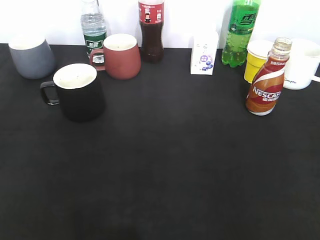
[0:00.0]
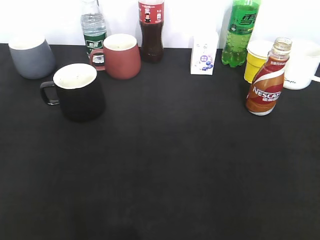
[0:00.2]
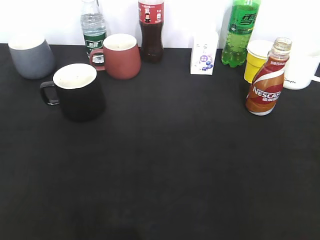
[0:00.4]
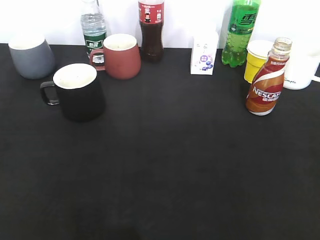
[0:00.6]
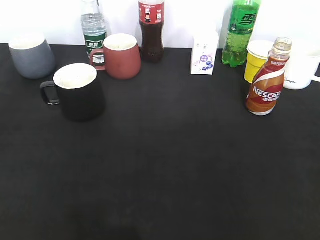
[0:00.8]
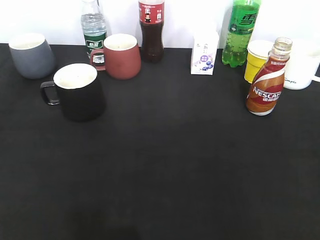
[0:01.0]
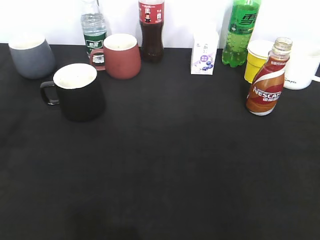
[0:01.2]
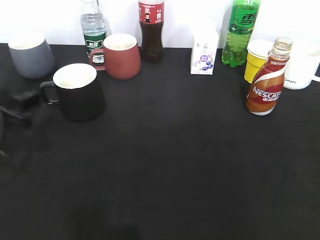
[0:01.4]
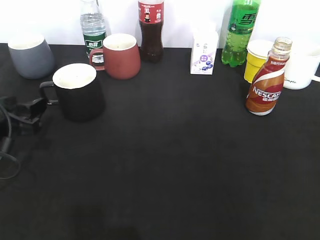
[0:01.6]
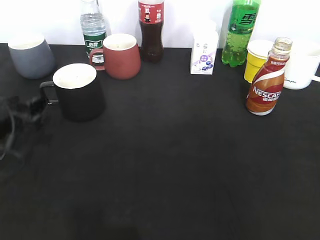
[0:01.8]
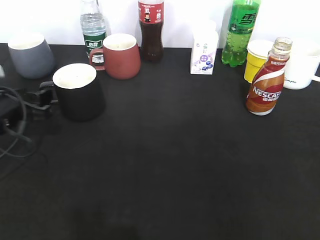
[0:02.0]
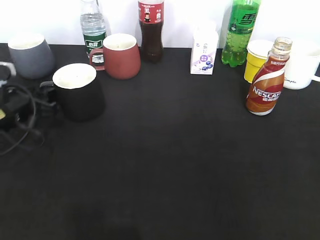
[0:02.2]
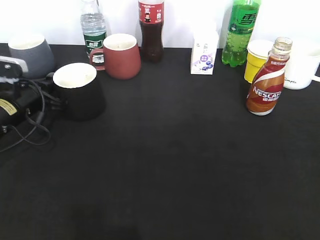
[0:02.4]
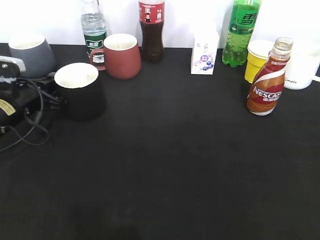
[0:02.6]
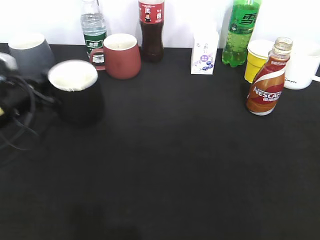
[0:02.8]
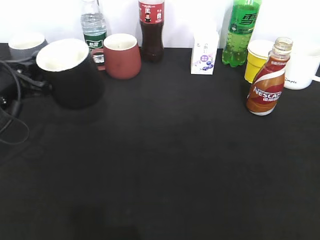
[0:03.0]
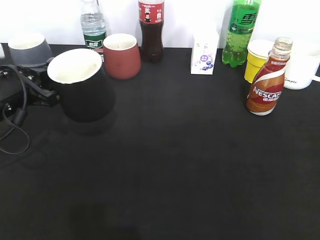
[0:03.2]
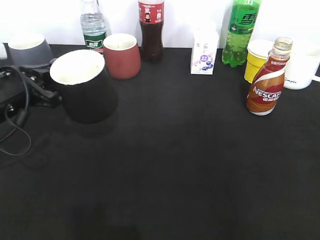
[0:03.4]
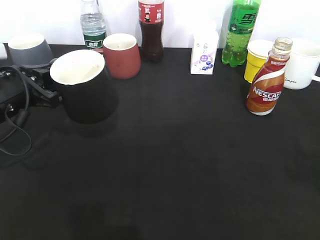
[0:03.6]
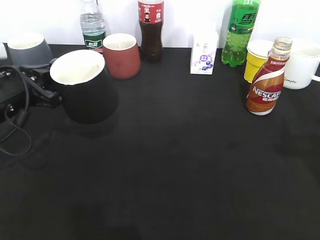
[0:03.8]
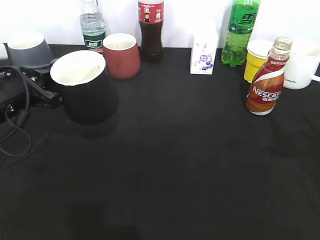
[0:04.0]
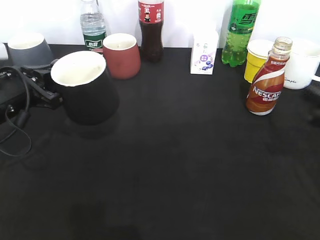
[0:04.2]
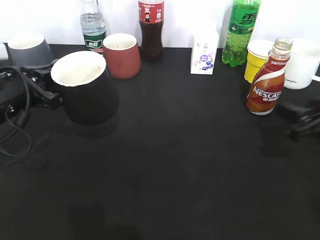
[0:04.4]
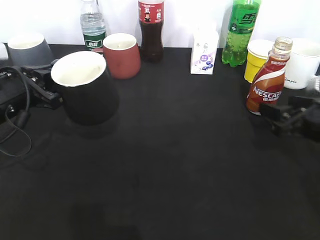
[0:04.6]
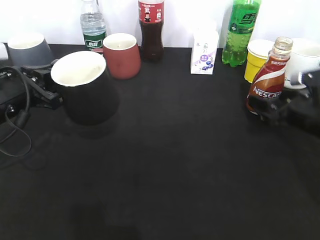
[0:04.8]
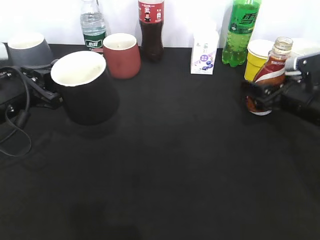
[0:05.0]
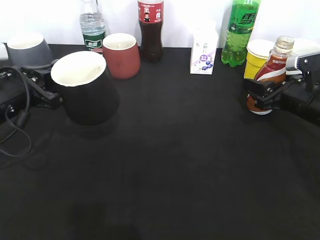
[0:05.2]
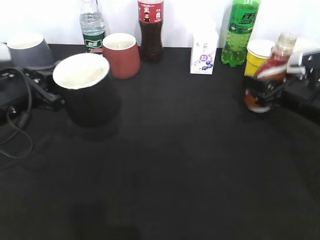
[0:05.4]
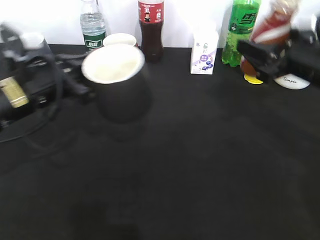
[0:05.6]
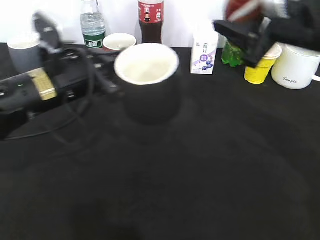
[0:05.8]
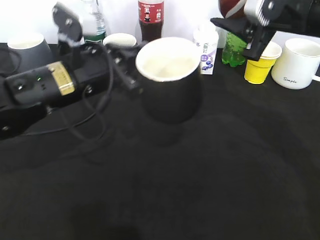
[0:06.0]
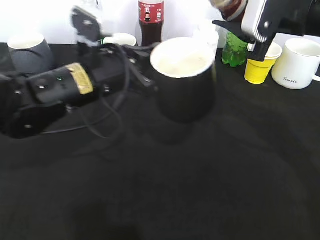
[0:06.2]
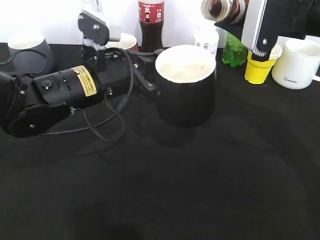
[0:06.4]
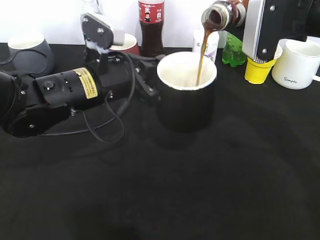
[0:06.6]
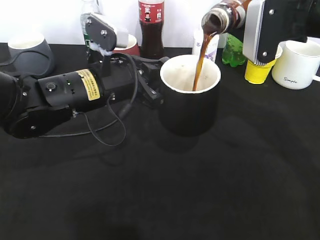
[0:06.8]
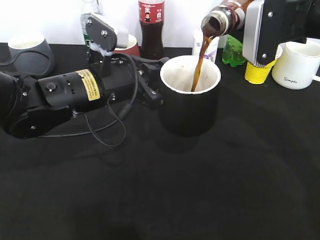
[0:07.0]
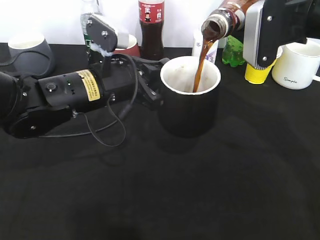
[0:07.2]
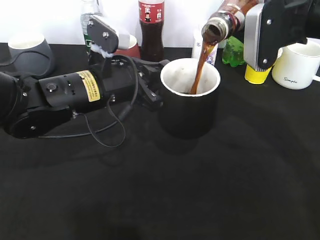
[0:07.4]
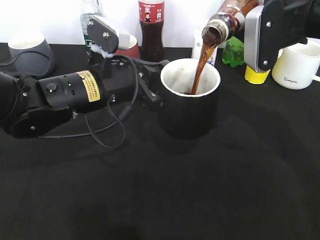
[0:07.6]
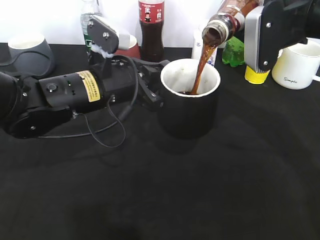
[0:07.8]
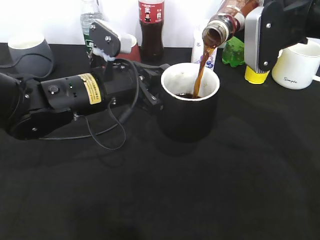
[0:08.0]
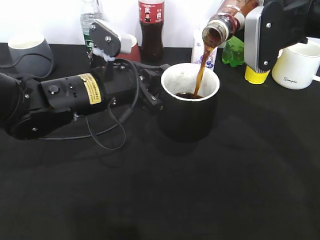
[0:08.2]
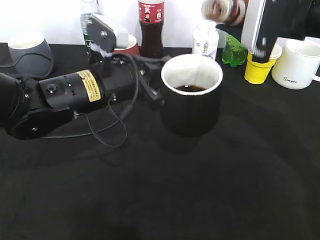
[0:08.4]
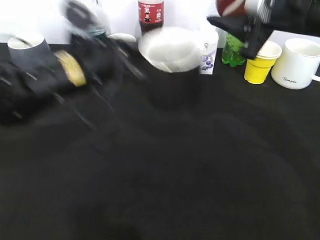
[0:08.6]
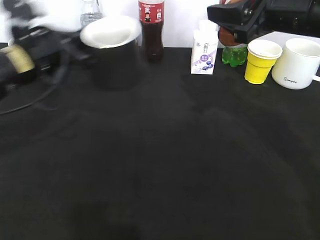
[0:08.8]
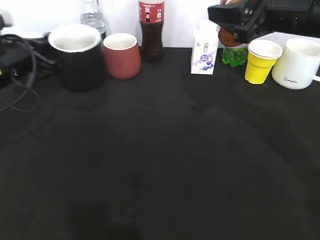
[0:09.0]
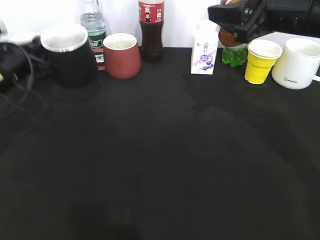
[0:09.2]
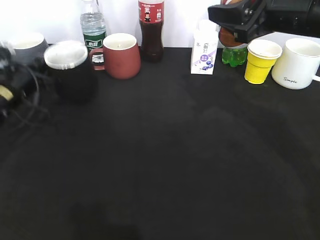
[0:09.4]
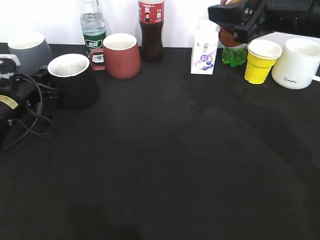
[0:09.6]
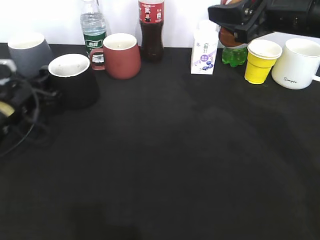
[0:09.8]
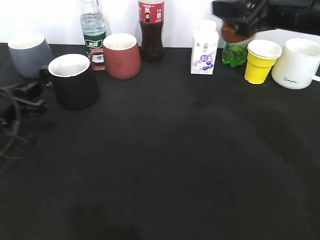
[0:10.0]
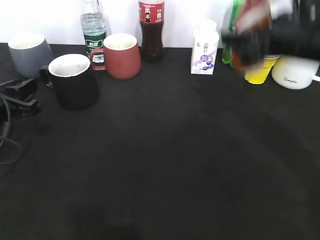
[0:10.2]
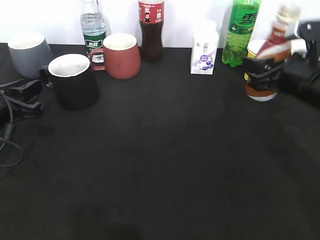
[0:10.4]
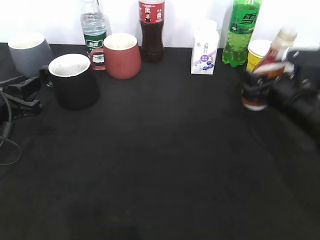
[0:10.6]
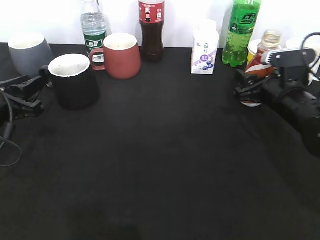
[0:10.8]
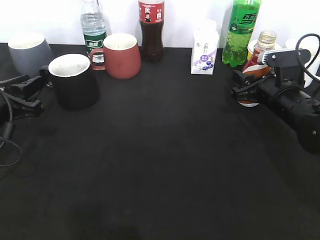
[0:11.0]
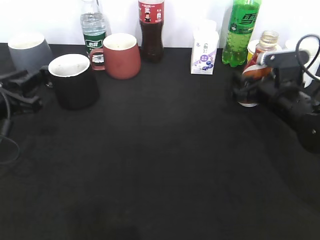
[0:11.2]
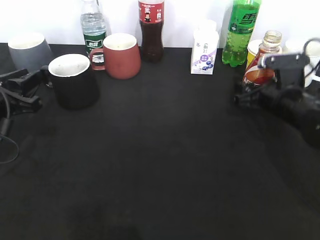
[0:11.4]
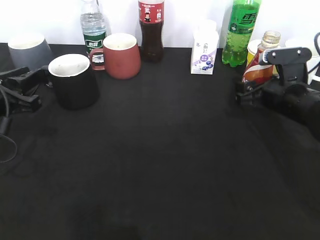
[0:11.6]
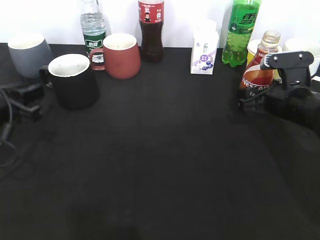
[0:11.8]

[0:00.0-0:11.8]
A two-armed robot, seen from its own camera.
Step, 0:00.0 to 0:02.4: Grasp the black cup with left gripper.
Step, 0:02.8 to 0:03.2: Lift the black cup with left gripper.
Step, 0:03.4 to 0:05.0: Grasp the bottle with coffee with right gripper.
Step, 0:05.2 to 0:08.6: Pour the coffee from bottle to cup with right gripper.
Step, 0:08.8 to 0:09.8: Place the black cup on the table with left gripper.
Step, 0:10.0 to 0:11.6: Place the coffee bottle on the table with right gripper.
0:00.0 to 0:01.4: The left gripper goes approximately 25 cm forward and downward, and opens up.
0:01.4 to 0:03.0: The left gripper moves forward, about 5 cm, and closes up.
0:03.0 to 0:04.4: The right gripper moves forward and downward, about 25 cm.
0:04.4 to 0:06.0: The right gripper is displaced upward, to the left and forward by approximately 20 cm, and closes. Meanwhile the left gripper is displaced to the right by approximately 15 cm.
0:07.4 to 0:08.8: The left gripper travels to the left by roughly 10 cm.
0:08.8 to 0:10.4: The right gripper goes some 10 cm downward, while the left gripper travels to the left, downward and backward by roughly 10 cm, and opens its fingers.
0:10.4 to 0:11.8: The right gripper shifts approximately 5 cm downward, and opens.

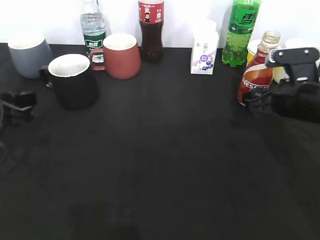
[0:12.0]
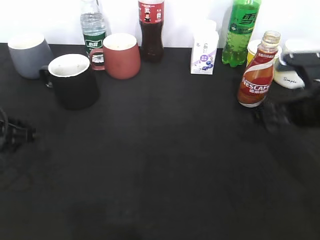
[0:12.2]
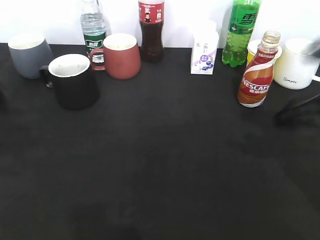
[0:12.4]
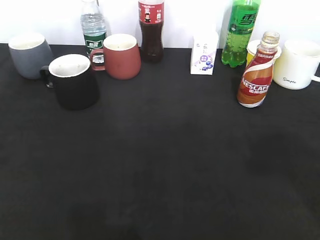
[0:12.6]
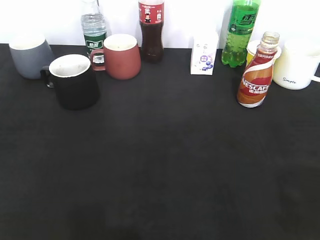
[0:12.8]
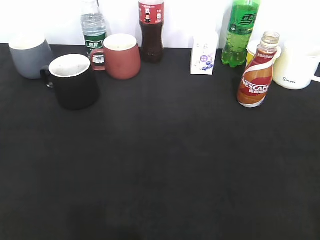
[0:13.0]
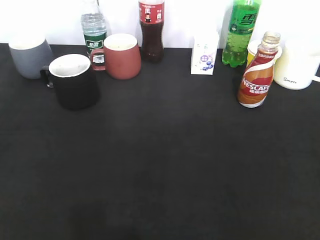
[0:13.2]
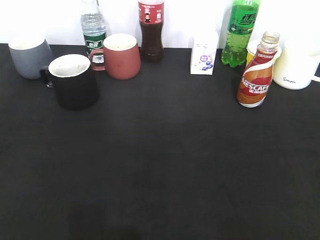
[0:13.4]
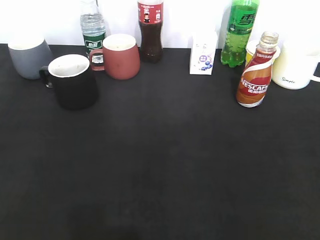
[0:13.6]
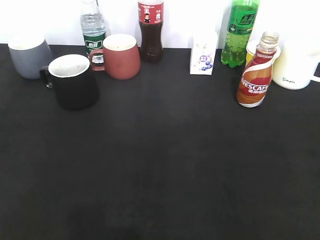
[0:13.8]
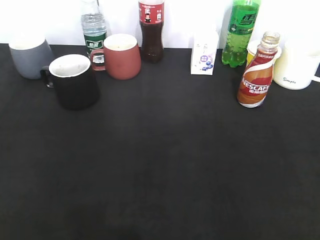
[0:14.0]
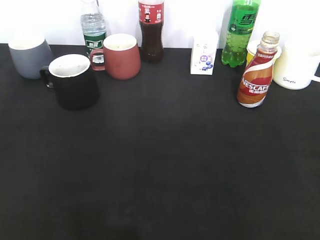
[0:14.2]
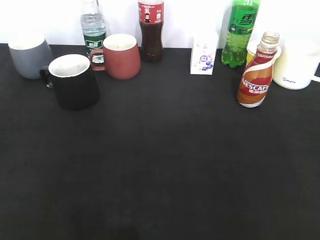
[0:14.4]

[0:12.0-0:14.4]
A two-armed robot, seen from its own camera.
0:12.0 to 0:13.2: The two grippers go roughly 30 cm backward and upward.
0:13.2 to 0:14.4: The grippers make only small movements.

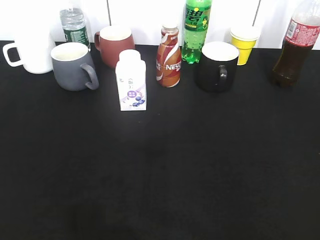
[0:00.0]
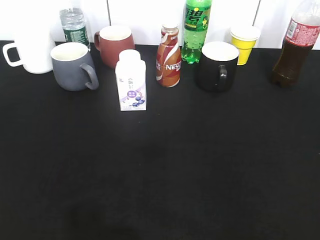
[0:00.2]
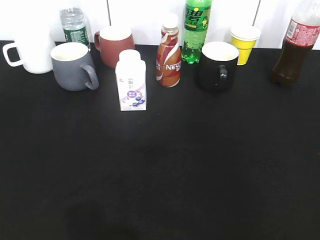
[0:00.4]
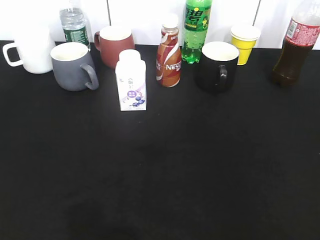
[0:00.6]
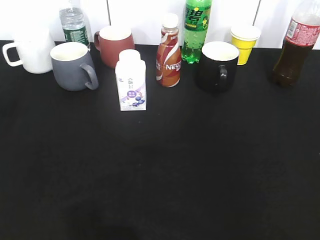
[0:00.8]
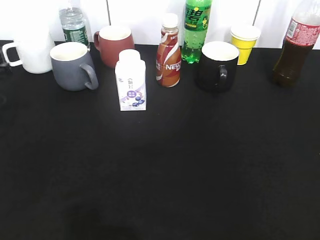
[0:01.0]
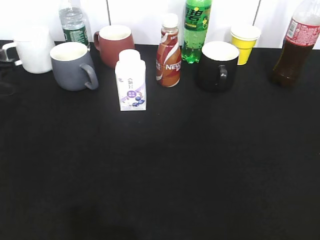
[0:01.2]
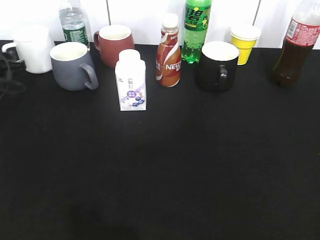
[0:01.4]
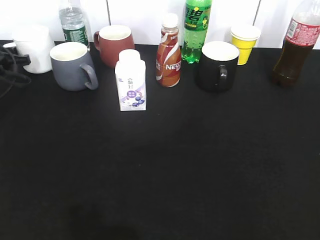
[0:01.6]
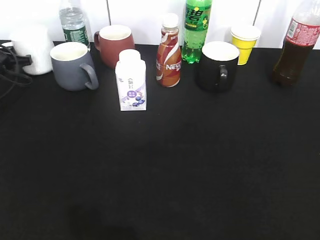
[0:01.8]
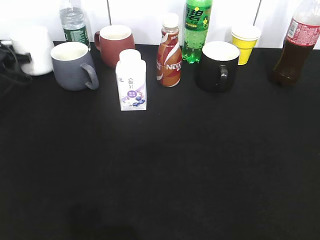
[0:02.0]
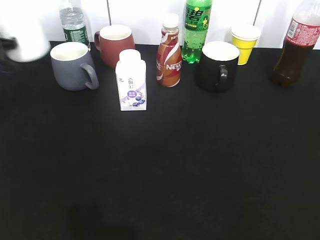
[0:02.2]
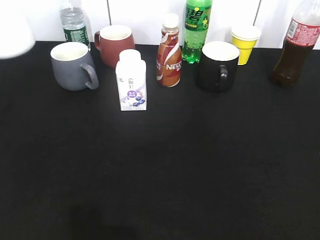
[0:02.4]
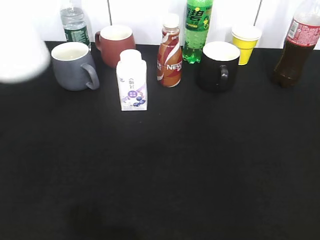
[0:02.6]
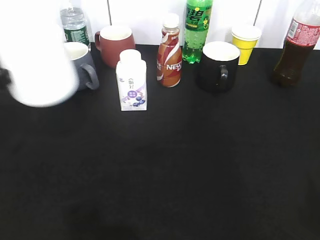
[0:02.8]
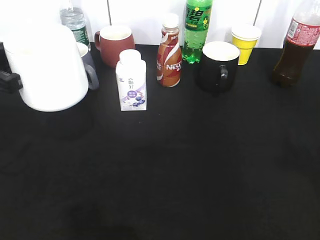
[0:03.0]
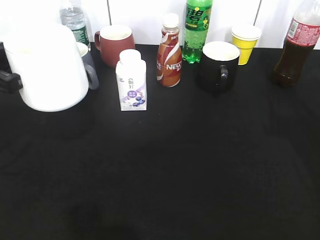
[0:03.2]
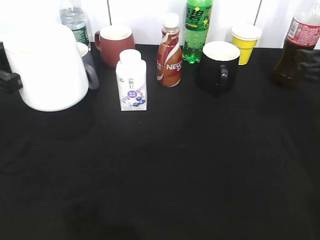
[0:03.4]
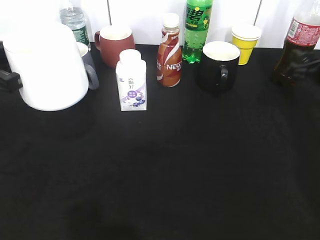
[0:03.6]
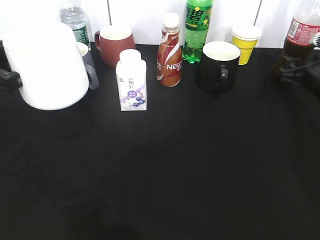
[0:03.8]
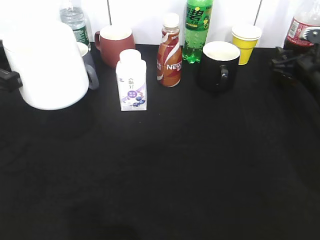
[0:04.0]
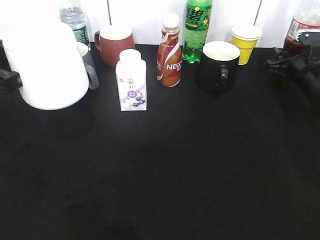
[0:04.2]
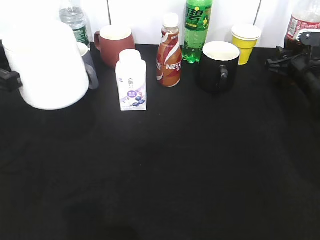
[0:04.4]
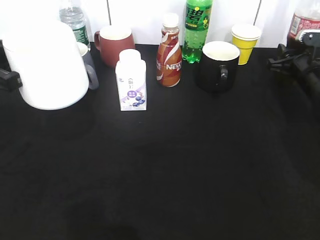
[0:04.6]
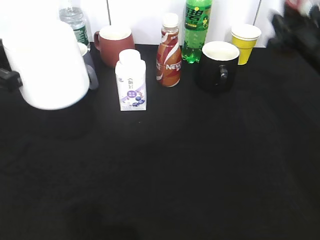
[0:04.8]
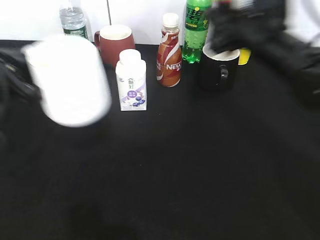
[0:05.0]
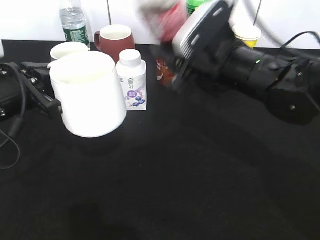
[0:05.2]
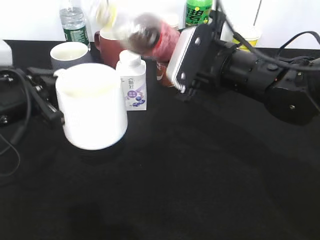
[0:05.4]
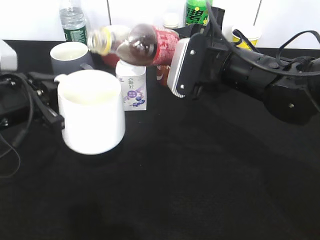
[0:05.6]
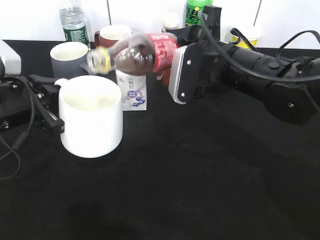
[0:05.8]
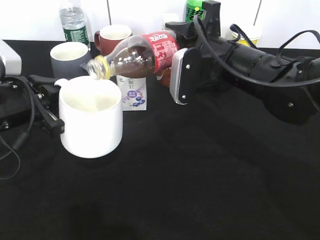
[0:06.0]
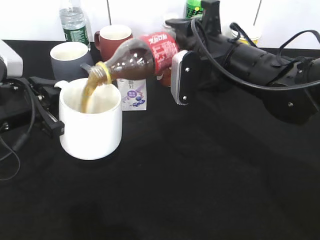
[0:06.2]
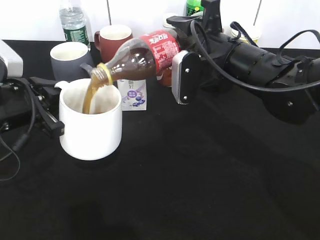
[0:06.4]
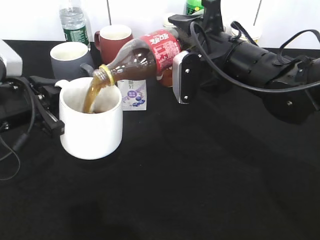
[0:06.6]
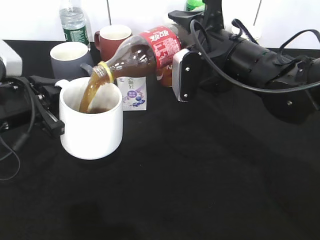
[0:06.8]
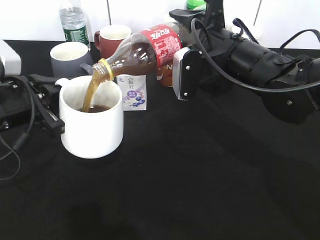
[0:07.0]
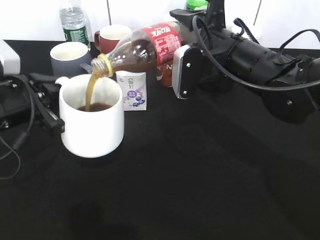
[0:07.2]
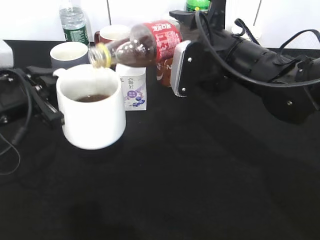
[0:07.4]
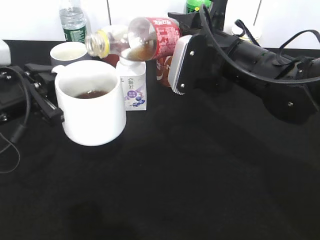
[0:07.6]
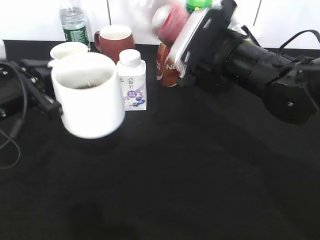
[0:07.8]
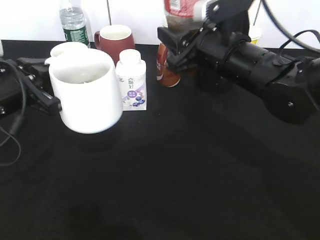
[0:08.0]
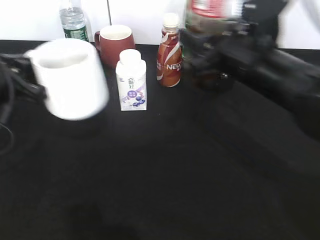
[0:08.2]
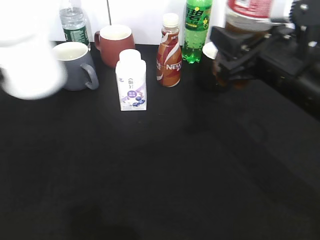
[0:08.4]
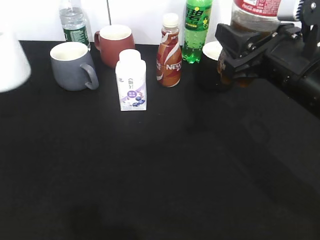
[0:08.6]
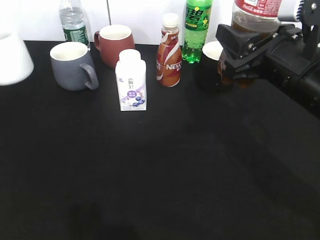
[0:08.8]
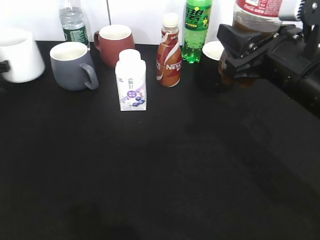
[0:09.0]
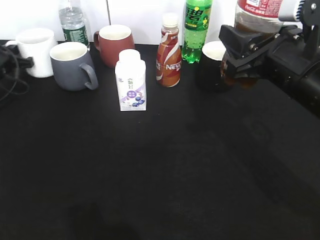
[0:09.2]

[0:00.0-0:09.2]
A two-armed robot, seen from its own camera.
Step, 0:01.8 to 0:03.6: Lift the white cup with left gripper.
Step, 0:04.4 to 0:07.6: Pour the cola from bottle to cup with right gripper.
0:00.0 to 0:01.6: The left gripper is displaced forward by some 40 cm, and closes up.
0:01.6 to 0:03.0: The right gripper is displaced forward by approximately 15 cm. Meanwhile the left gripper is displaced backward, upward and to the right by about 25 cm, and closes up.
0:03.0 to 0:04.6: The right gripper shifts some 30 cm forward and downward, and closes.
0:04.6 to 0:06.2: The right gripper is displaced to the left, backward and upward by roughly 25 cm; the left gripper goes roughly 5 cm downward.
0:06.2 to 0:07.6: The grippers make only small movements.
0:07.6 to 0:09.2: The left gripper shifts some 25 cm forward, to the left and downward, while the right gripper is displaced backward and to the right by about 10 cm.
